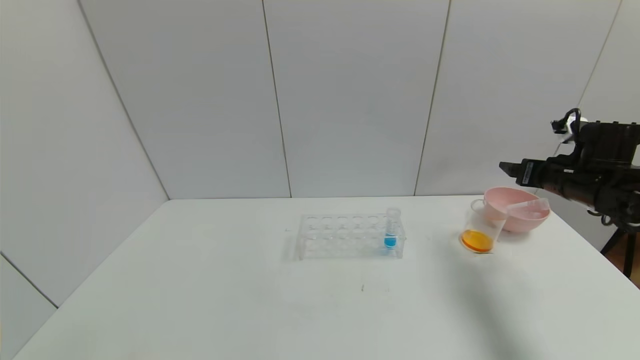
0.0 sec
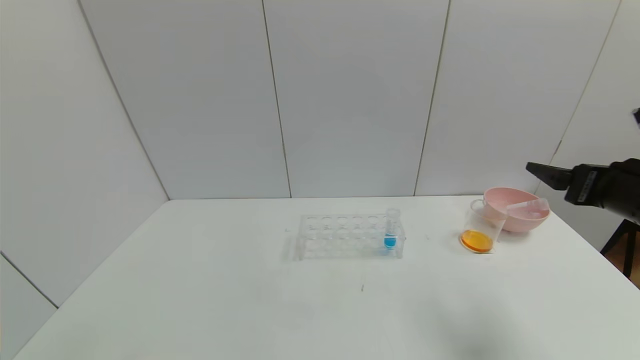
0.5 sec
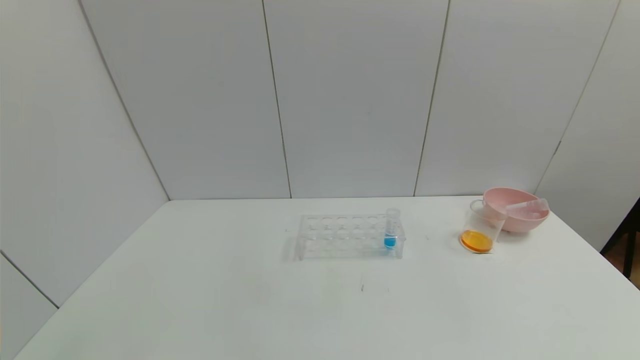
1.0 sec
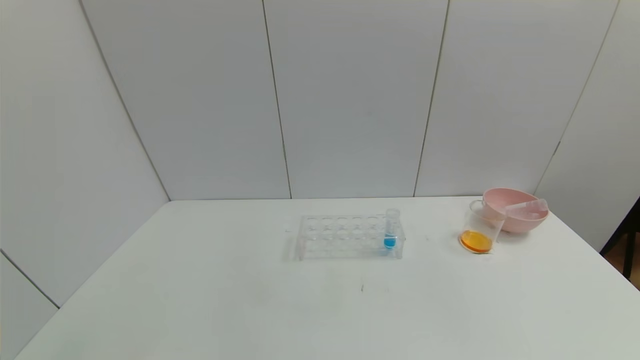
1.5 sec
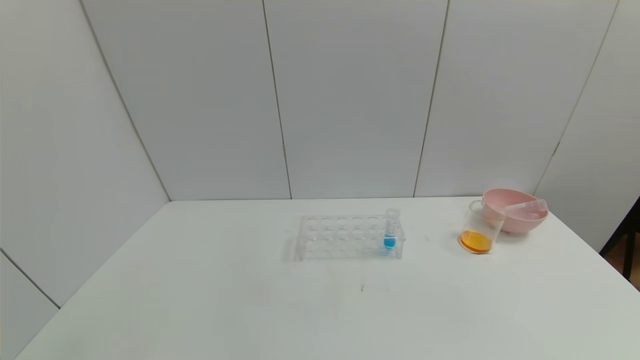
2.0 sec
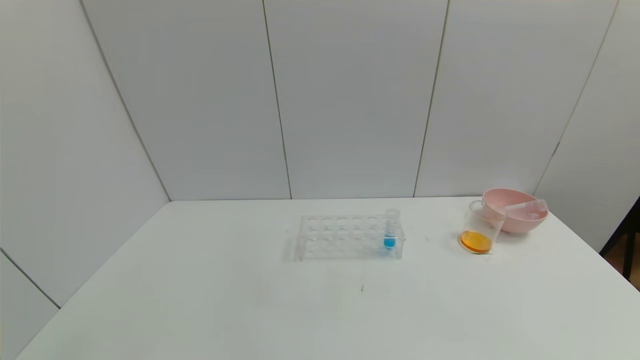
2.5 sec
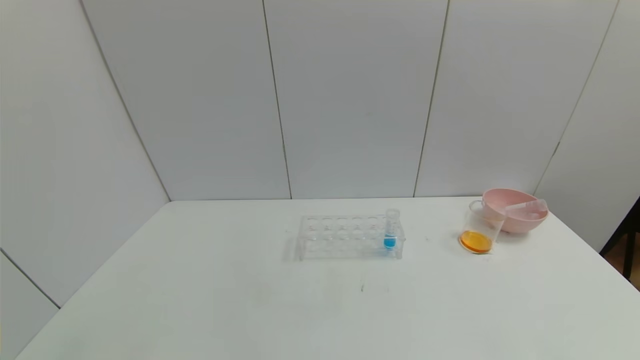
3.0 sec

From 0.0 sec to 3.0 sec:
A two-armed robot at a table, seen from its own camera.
Task of the whole recording: pick up the test tube with yellow pigment and the test tube with red pigment by grippers and pour them into the beaker.
From 0.0 sec to 1.5 sec: The right gripper shifts approximately 40 cm backward.
